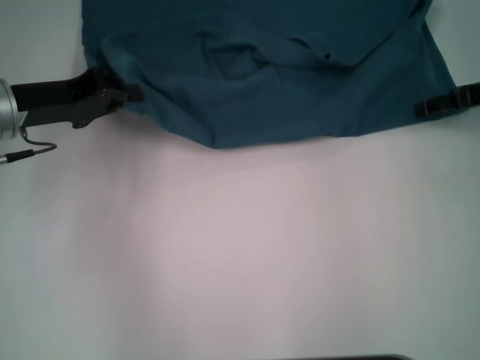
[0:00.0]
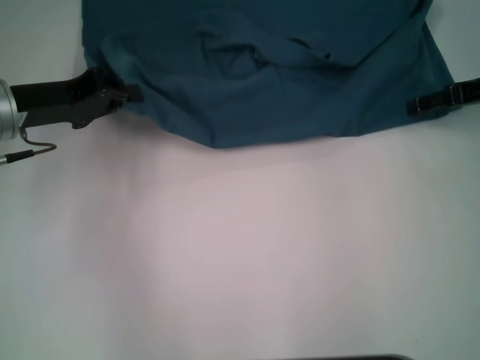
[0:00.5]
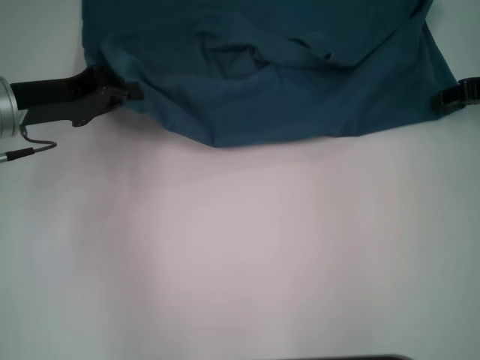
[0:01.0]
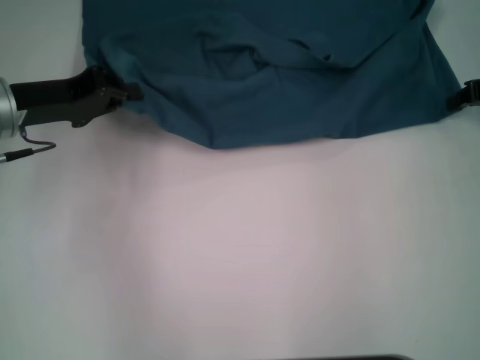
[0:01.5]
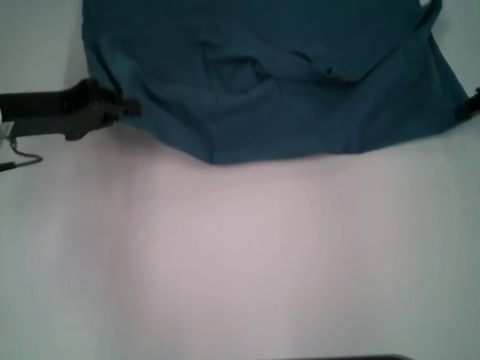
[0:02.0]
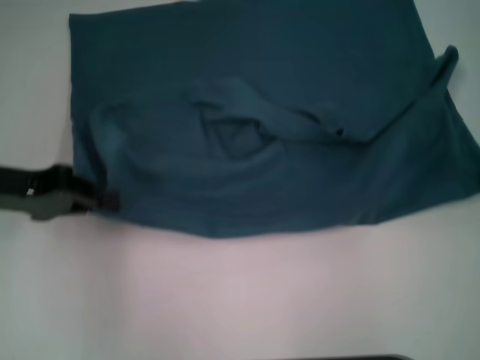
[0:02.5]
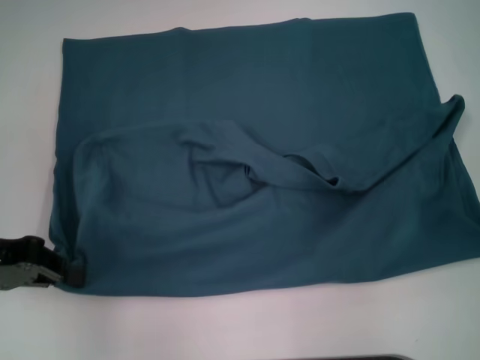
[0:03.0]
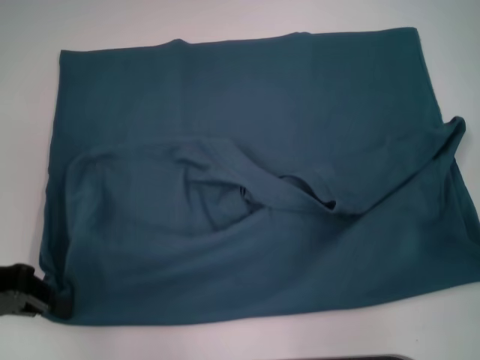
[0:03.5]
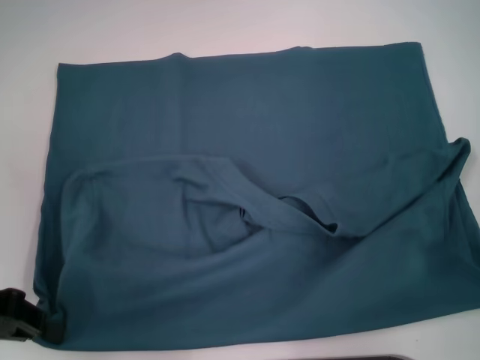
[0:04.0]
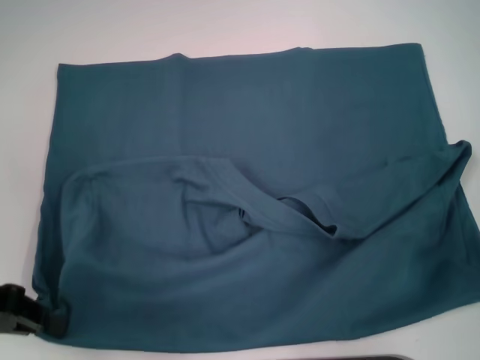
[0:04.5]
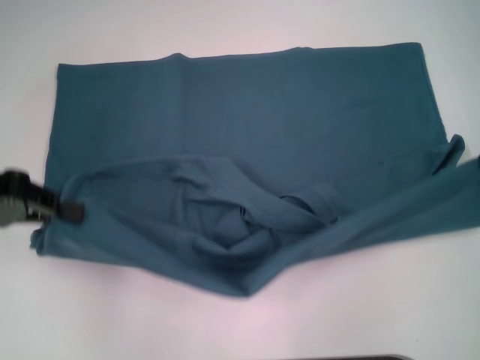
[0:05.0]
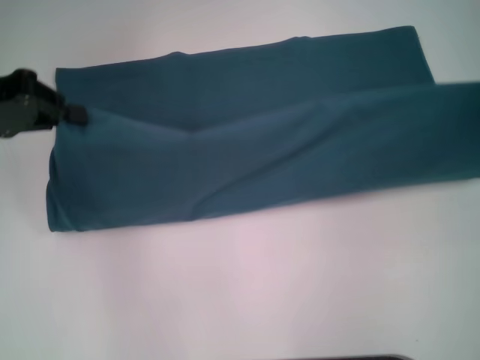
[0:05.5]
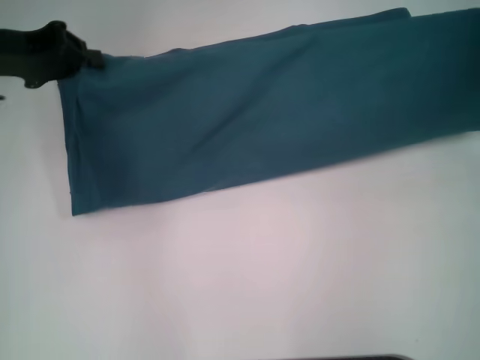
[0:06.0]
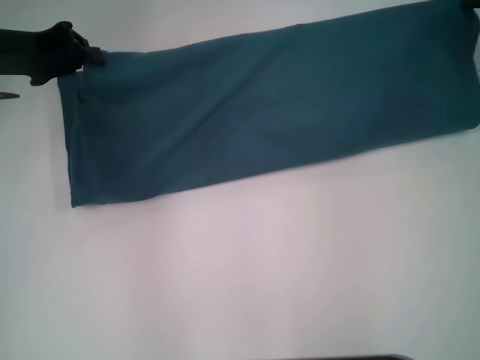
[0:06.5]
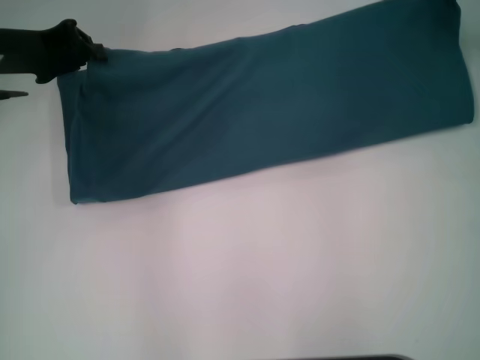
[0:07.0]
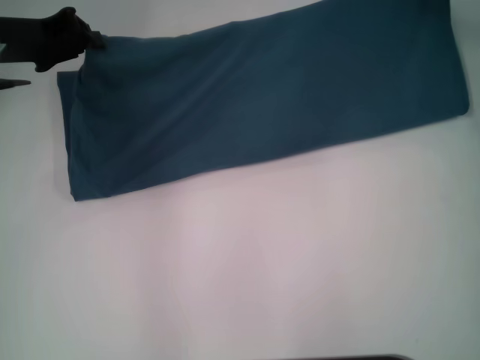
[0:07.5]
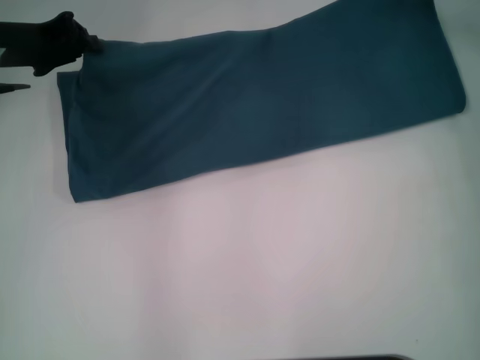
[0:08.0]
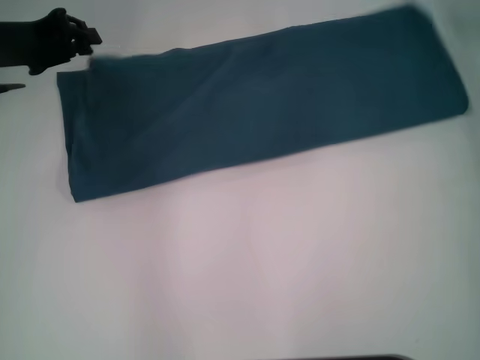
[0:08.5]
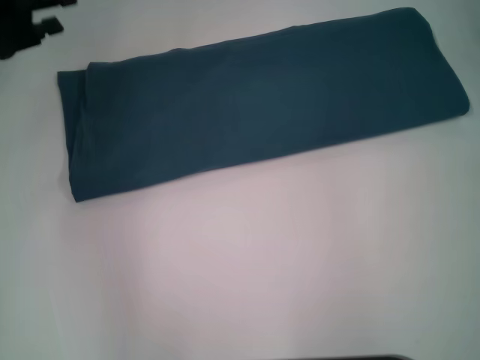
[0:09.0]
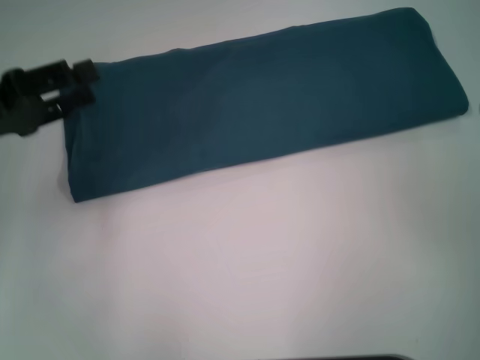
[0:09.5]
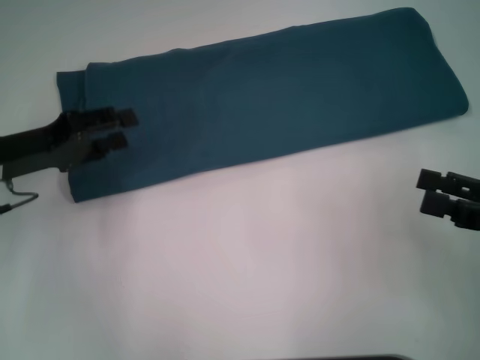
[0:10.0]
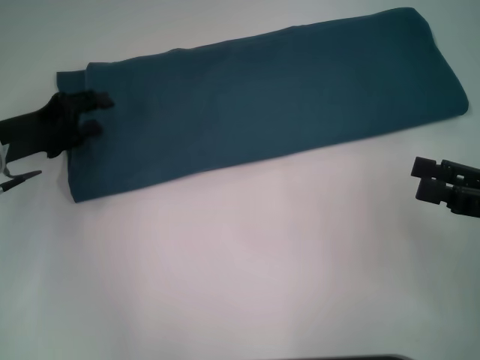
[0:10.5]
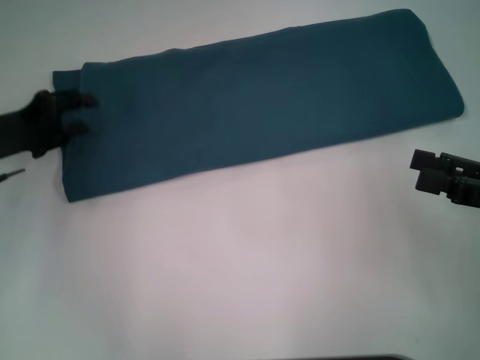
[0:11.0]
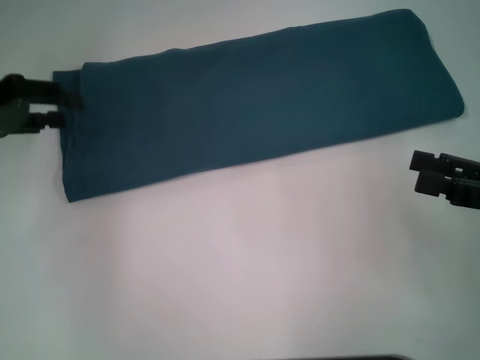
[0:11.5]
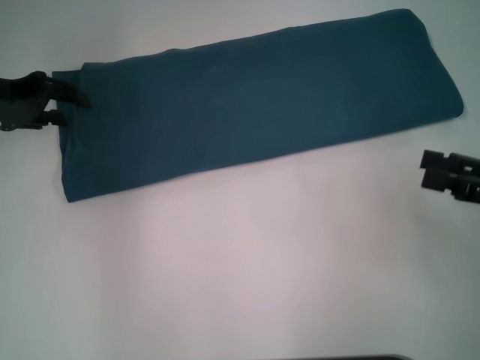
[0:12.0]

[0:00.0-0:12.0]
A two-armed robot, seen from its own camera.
Step, 0:00.0 to 0:04.0: Pull the clothes with your left hand.
Step, 0:00.0 to 0:04.0: Pull the clothes with your right hand.
Step, 0:04.5 to 0:08.5: Fold the clothes to the left.
Step, 0:04.5 to 0:08.5: Fold the clothes to the right.
0:00.0 to 0:02.0: The right gripper closes its fingers.
0:02.0 to 0:04.0: The right gripper shifts about 10 cm backward. The left gripper goes some 10 cm backward and to the left.
0:04.0 to 0:06.0: The right gripper is displaced forward and upward by approximately 10 cm, while the left gripper moves forward and upward, about 15 cm.
0:06.0 to 0:08.0: The right gripper is displaced to the left and forward by approximately 15 cm.
0:08.0 to 0:10.0: The right gripper travels backward by about 25 cm, and opens; the left gripper heads backward and downward, covering about 10 cm, and opens up.
0:10.0 to 0:12.0: The left gripper goes approximately 5 cm forward.

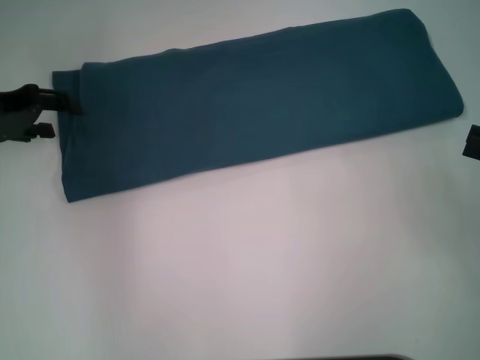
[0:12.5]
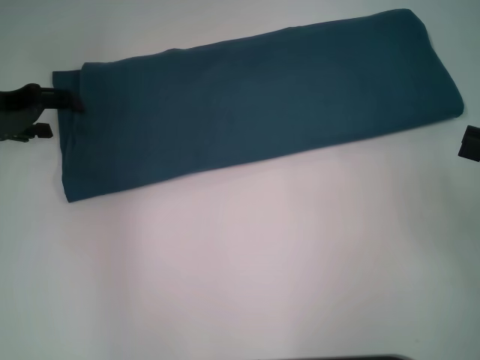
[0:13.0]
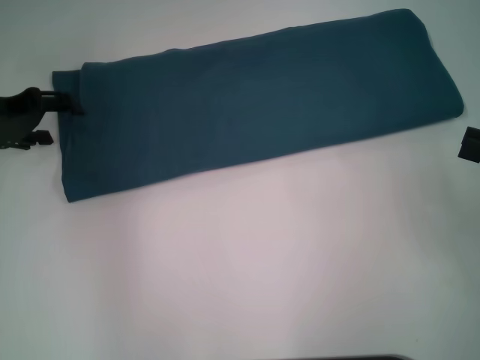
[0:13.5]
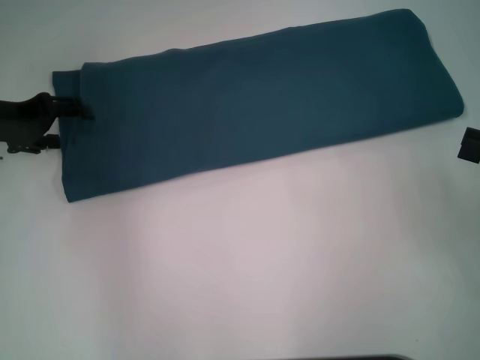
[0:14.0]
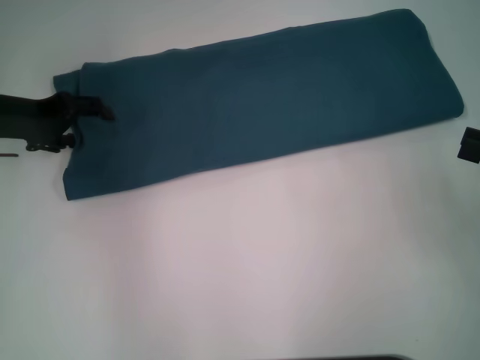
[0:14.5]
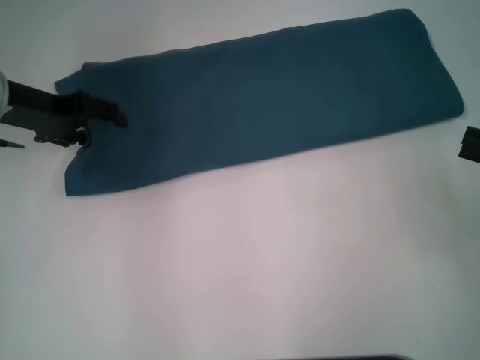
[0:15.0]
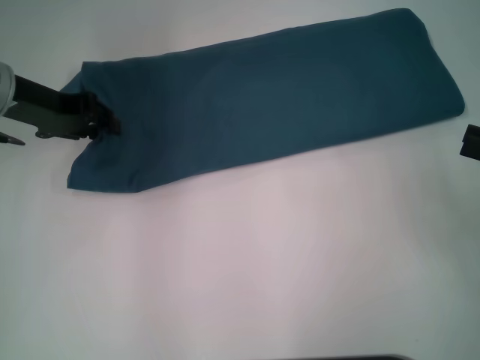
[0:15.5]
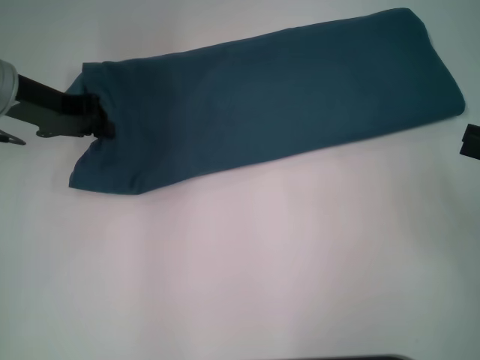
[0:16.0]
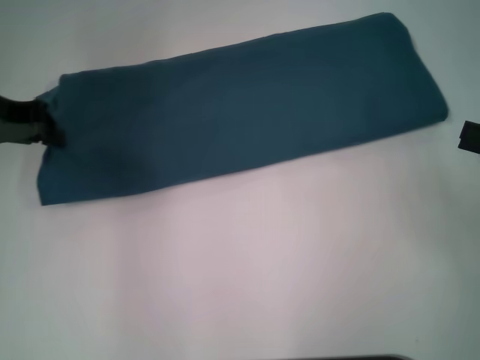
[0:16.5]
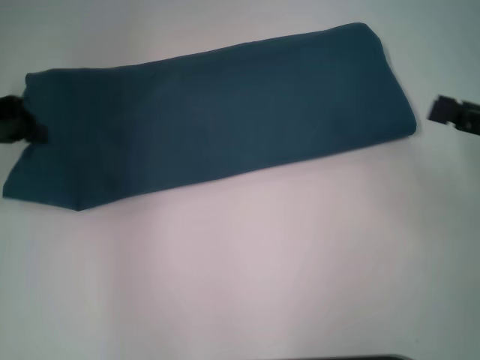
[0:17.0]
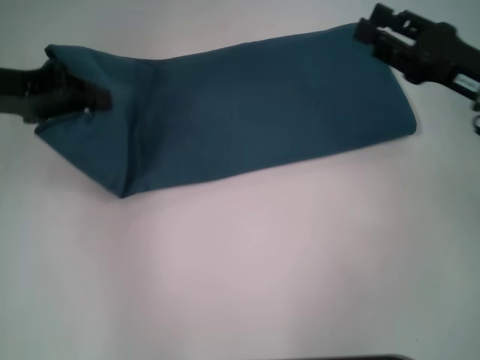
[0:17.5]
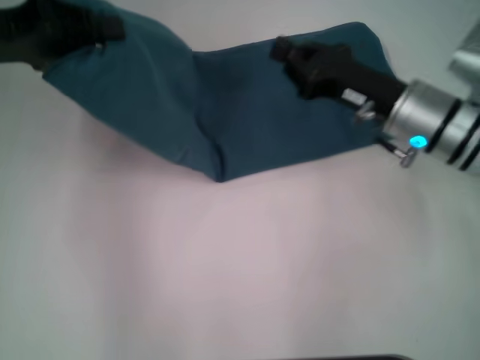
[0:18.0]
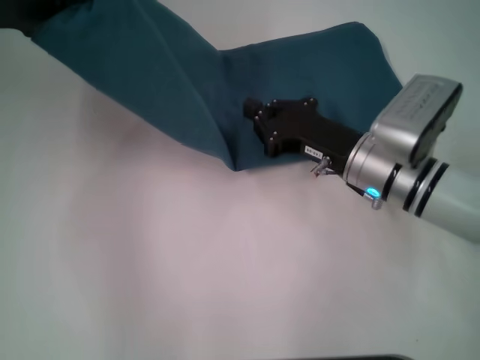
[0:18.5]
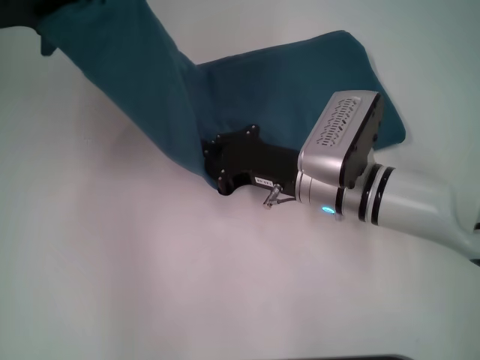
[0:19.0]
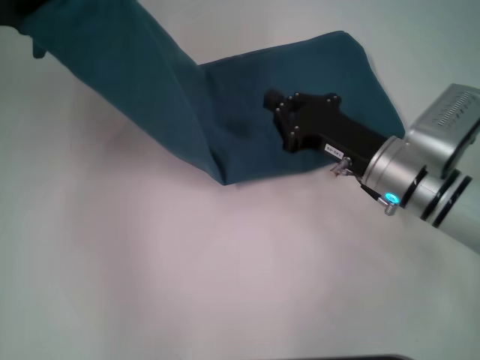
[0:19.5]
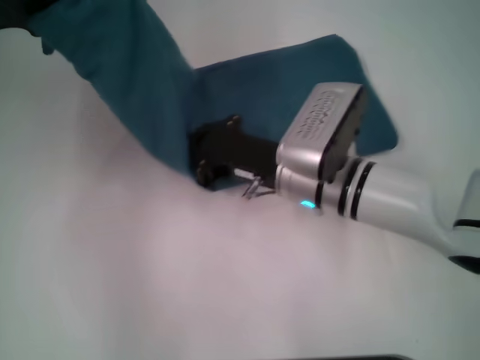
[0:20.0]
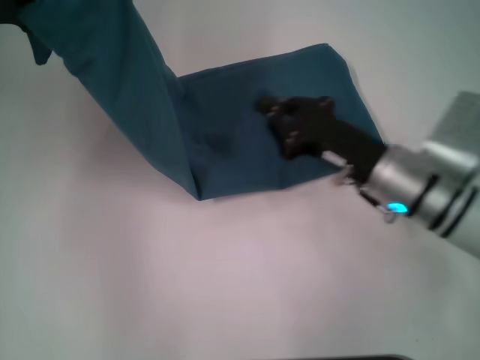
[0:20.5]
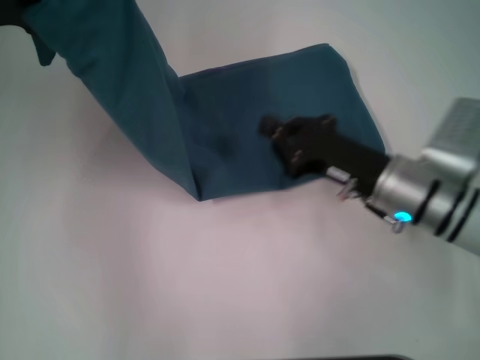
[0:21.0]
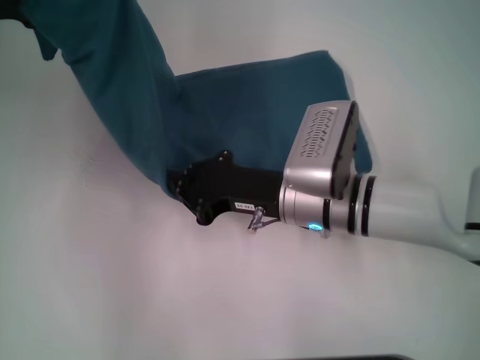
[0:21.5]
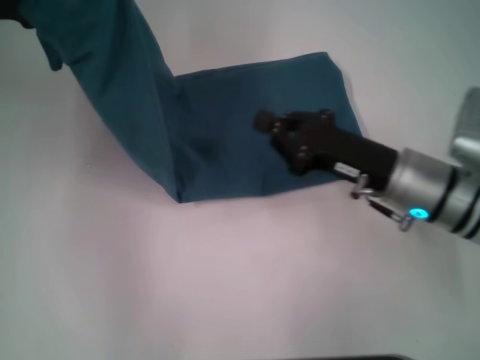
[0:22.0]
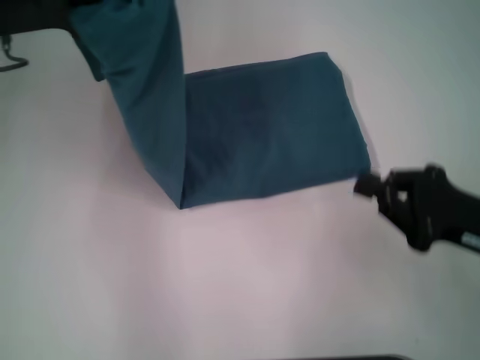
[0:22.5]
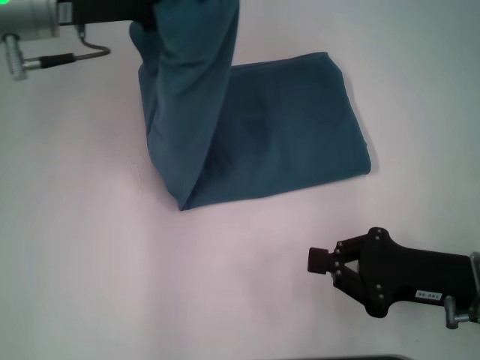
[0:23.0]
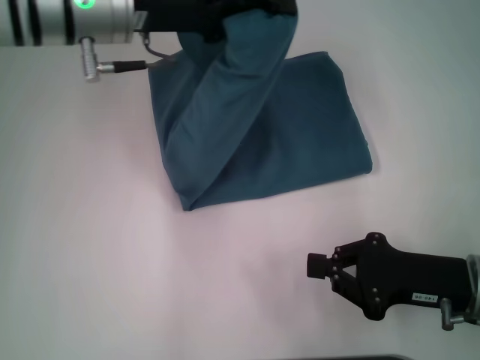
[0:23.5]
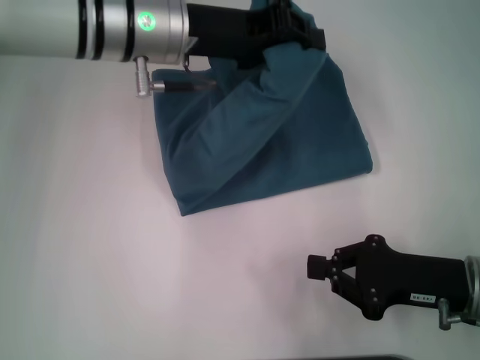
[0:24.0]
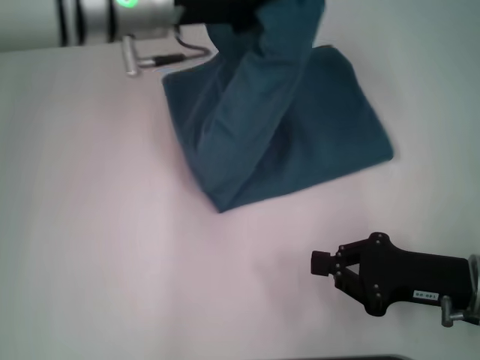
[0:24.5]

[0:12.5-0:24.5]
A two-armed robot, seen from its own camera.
Step, 0:12.5 to 0:21.5: Press the middle of the clothes with your right hand.
0:12.5 to 0:14.5: There are only small adjustments of the grippers.
0:14.5 to 0:16.5: The left gripper closes up.
0:16.5 to 0:18.5: The right gripper travels to the left by approximately 20 cm, and closes its fingers. The left gripper is displaced upward by roughly 5 cm.
0:18.5 to 0:20.5: The right gripper moves left and right over some 10 cm, changing direction 3 times.
0:20.5 to 0:22.5: The right gripper is displaced to the right and backward by about 15 cm.
0:22.5 to 0:24.5: The left gripper travels to the right by approximately 15 cm.

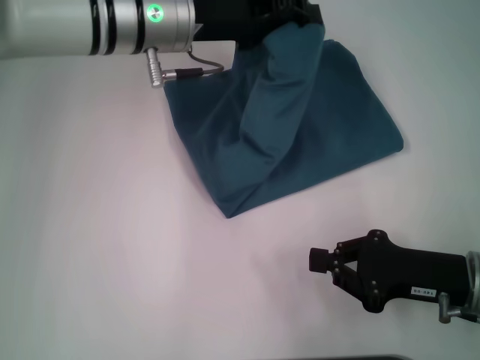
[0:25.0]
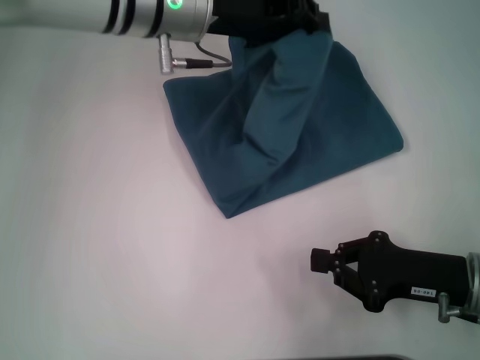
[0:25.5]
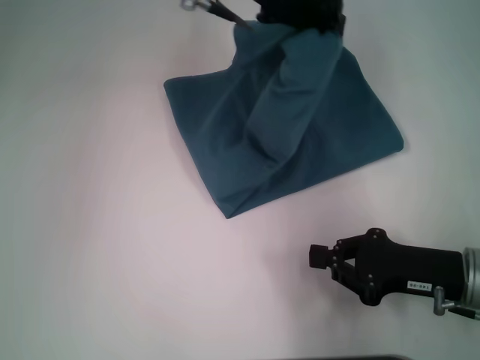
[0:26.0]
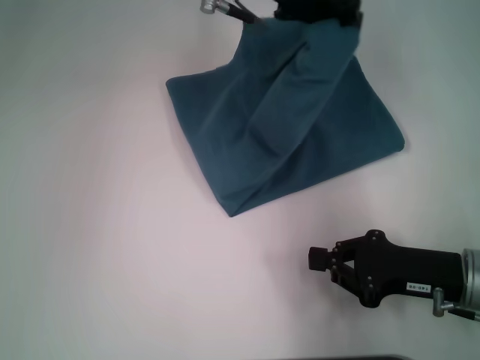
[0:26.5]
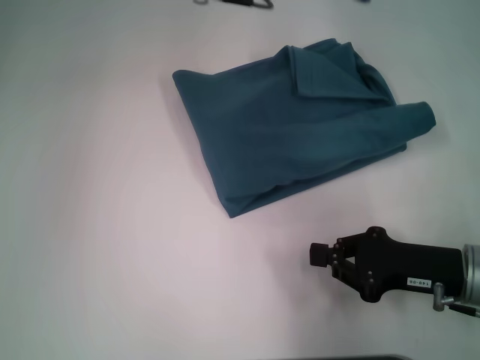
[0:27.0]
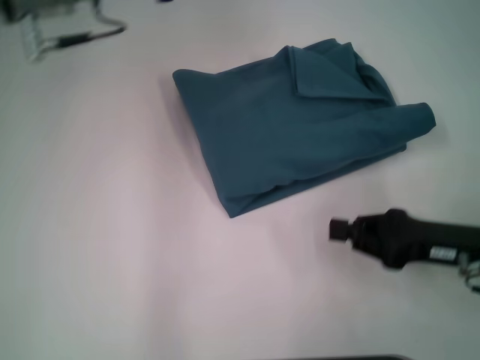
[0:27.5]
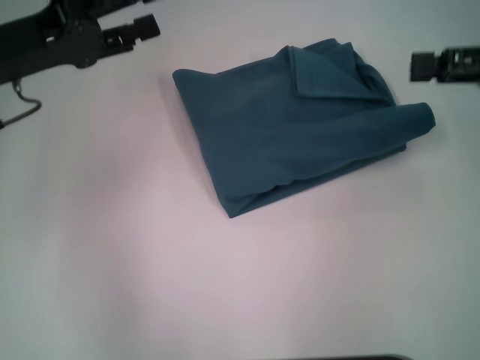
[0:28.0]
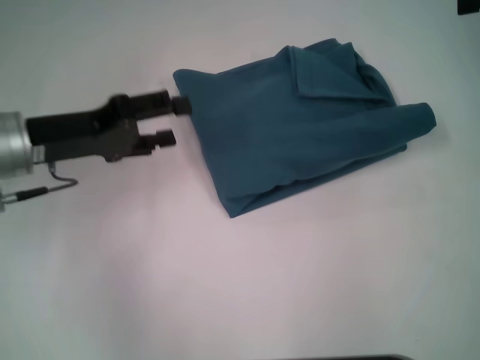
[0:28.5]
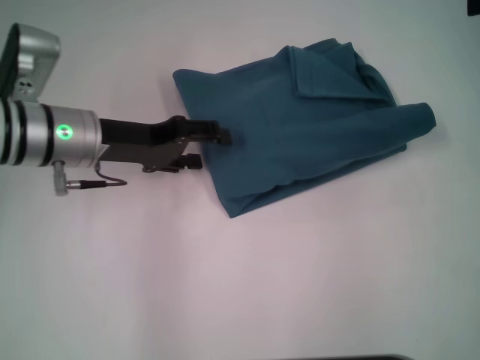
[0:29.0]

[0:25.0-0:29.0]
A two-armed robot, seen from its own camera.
0:25.0 to 0:27.0: The left gripper shifts roughly 10 cm upward and to the right.
0:27.0 to 0:29.0: The left gripper heads downward, to the left and backward, covering roughly 25 cm, and opens its fingers. Meanwhile the right gripper shifts some 30 cm upward, forward and to the right, and opens up.
